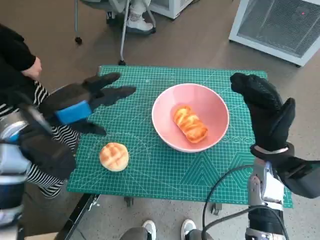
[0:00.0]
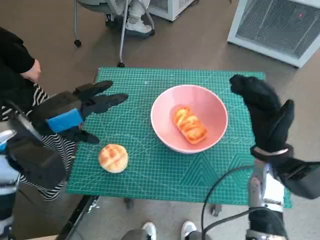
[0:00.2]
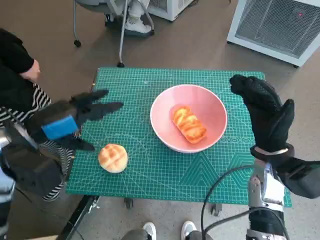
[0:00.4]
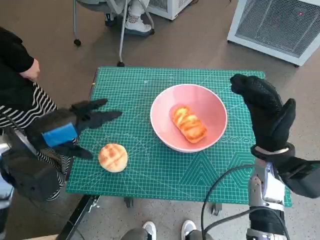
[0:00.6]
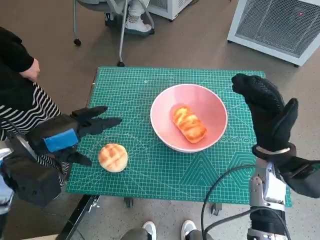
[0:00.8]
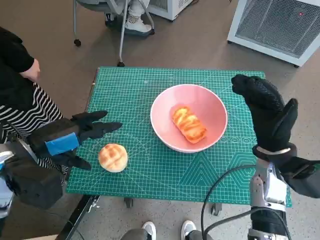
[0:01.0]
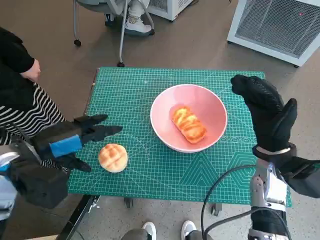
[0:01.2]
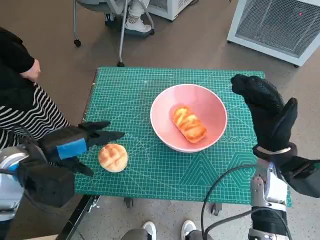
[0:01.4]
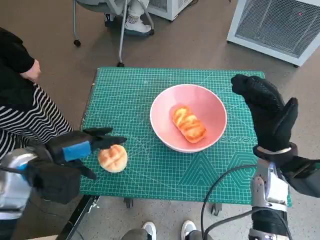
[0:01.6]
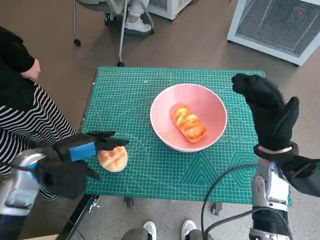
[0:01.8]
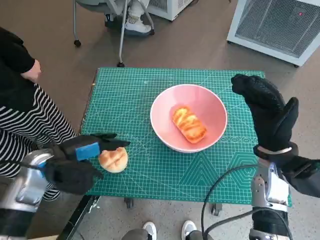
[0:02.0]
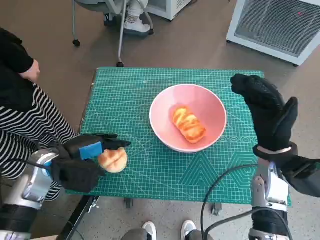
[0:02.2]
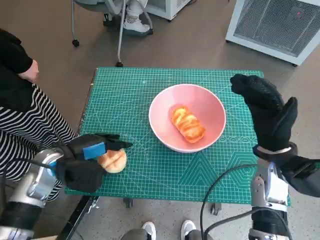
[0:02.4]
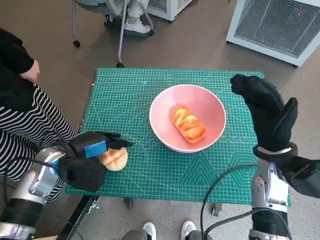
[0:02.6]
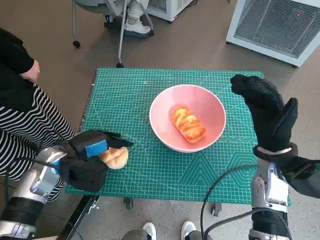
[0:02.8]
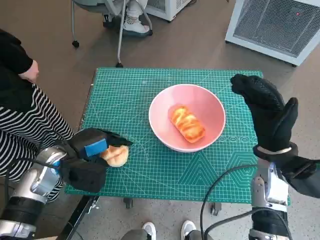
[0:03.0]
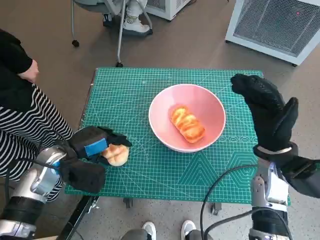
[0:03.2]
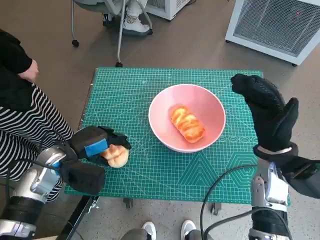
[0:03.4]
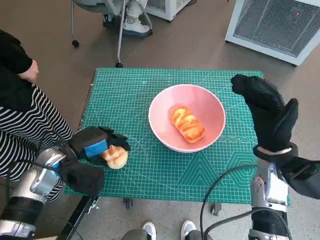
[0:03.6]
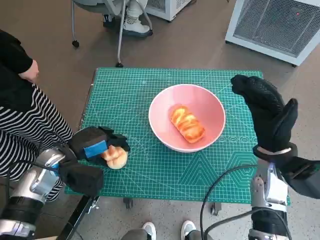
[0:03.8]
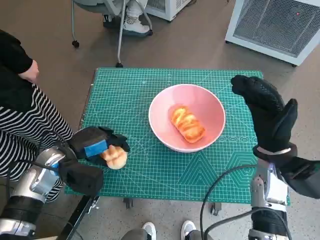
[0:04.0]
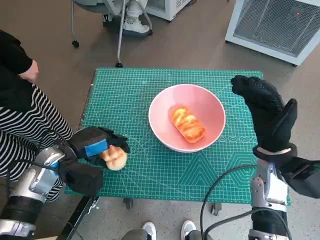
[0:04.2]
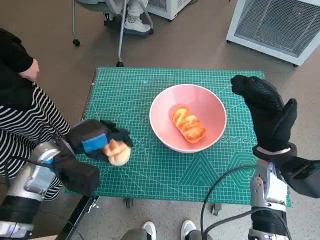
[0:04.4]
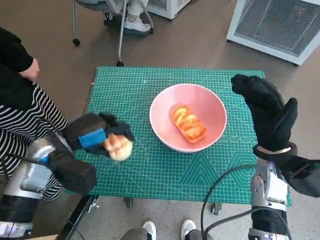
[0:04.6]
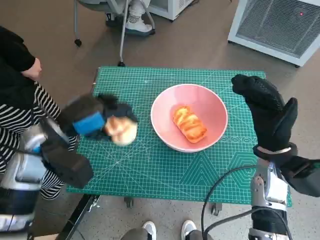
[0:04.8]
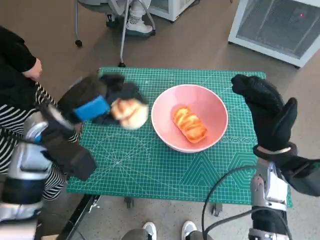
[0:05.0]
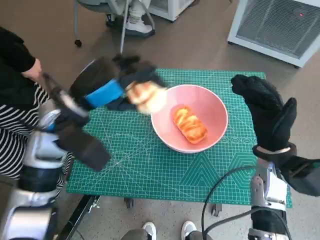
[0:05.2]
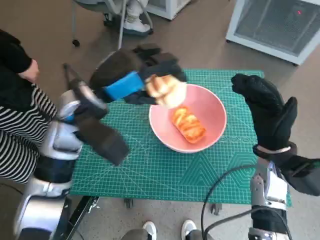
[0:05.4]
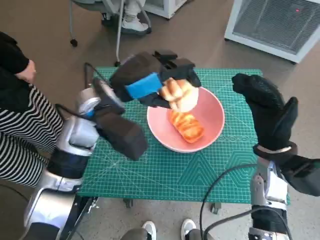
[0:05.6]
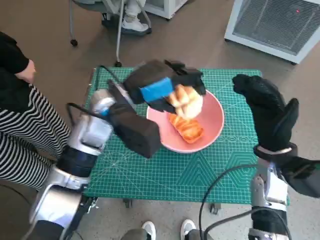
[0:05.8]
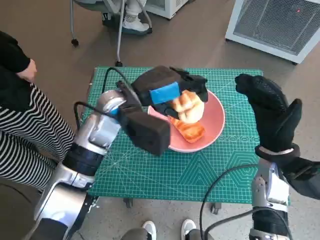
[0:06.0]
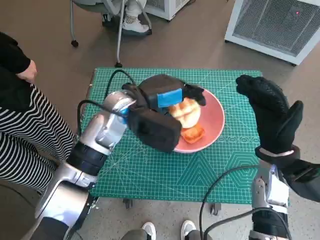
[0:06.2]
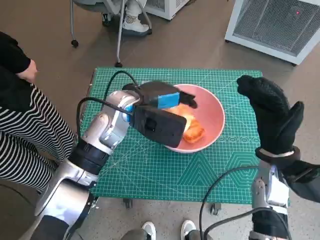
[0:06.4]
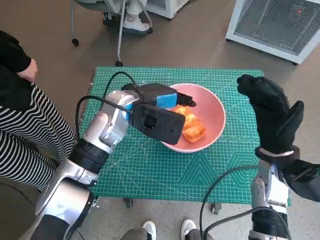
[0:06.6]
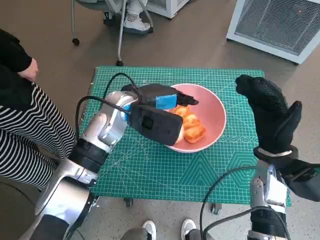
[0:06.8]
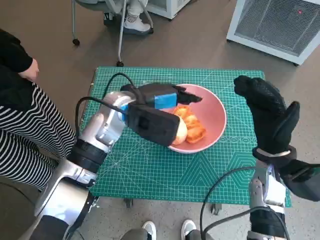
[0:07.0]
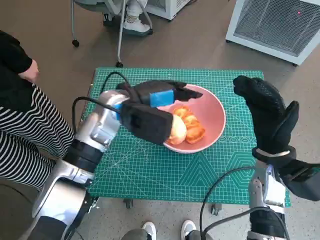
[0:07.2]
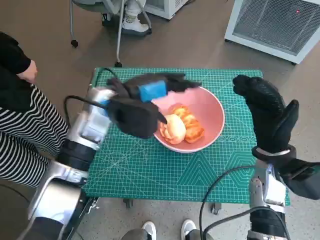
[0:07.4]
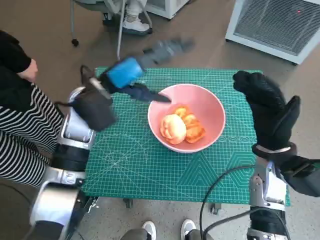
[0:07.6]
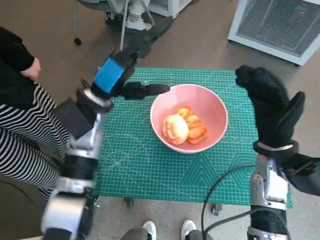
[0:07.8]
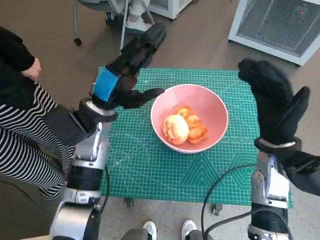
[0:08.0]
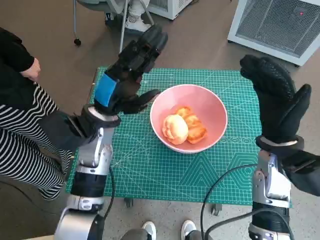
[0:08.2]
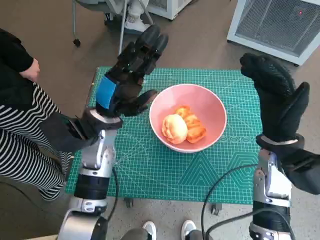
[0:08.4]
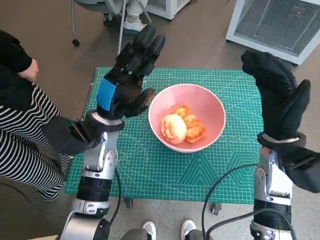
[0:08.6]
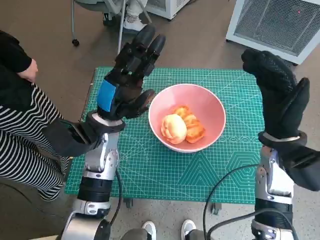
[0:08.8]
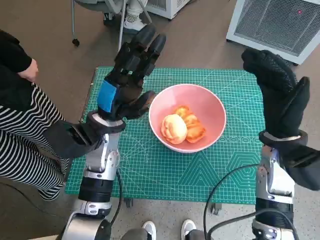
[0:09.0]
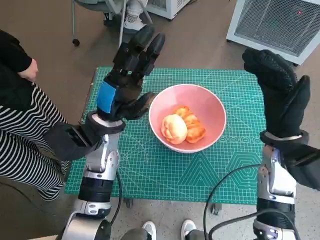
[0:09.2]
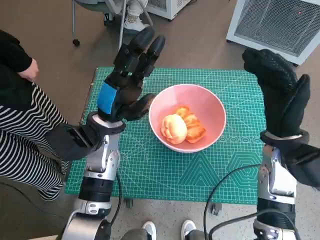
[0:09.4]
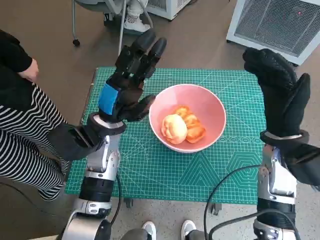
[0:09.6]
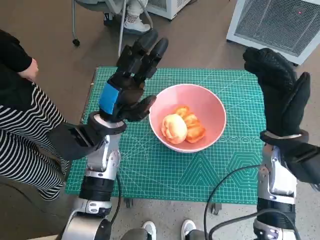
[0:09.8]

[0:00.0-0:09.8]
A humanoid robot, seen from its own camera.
Task of the whole recording: Push the bowl into the center of the table and put the bread into the bowl.
Step, 0:00.0 to 0:03.4: Grasp the round bread with left hand.
Step, 0:03.6 to 0:07.2: Place the round bread in pink bowl with left hand.
0:00.0 to 0:01.4: The left hand shifts by about 5 cm.
0:01.4 to 0:02.8: The left hand heads downward, covering approximately 10 cm.
0:02.8 to 0:04.2: The hands move only a little.
0:04.2 to 0:05.6: The left hand goes some 15 cm upward and to the right.
0:05.6 to 0:07.0: The left hand changes place by some 5 cm.
0:07.0 to 0:08.4: The left hand ends up about 5 cm from where it was.
0:08.4 to 0:09.8: The hands move only a little.

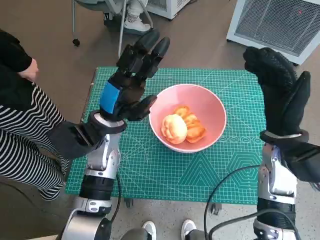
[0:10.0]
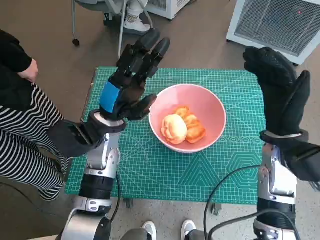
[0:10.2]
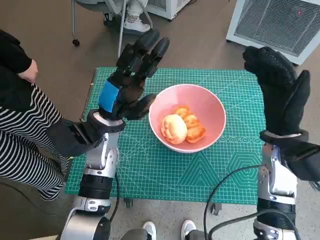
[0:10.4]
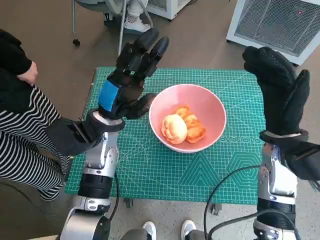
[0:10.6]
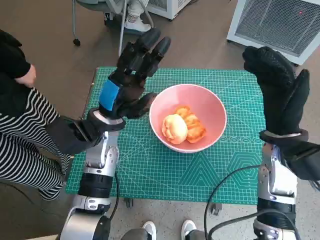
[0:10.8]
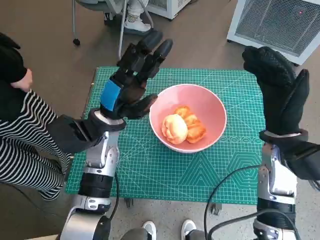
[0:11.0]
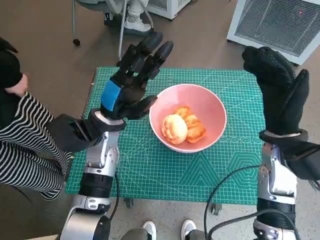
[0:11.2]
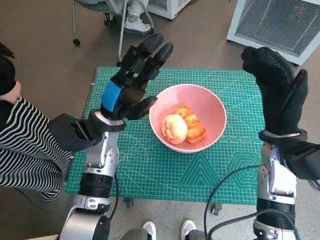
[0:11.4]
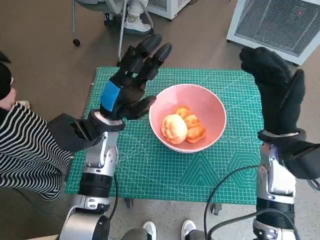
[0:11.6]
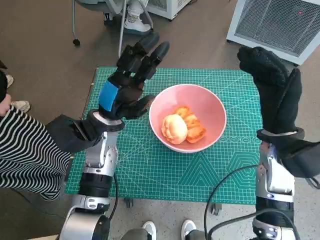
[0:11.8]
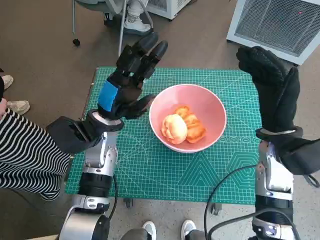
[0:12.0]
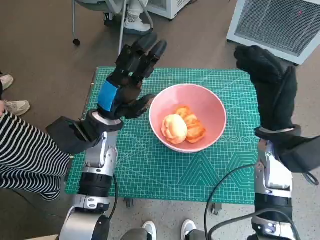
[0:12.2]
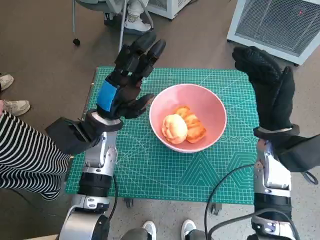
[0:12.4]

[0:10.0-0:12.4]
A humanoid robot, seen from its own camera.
Task of the whole recording: Push the bowl into the center of the table and put the bread into the bowl.
0:10.0 to 0:12.4: Both hands stay put.

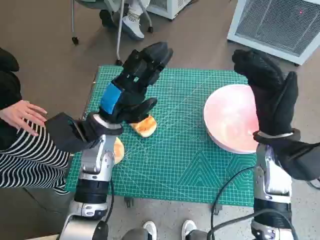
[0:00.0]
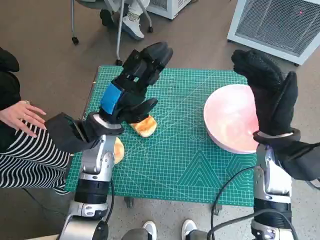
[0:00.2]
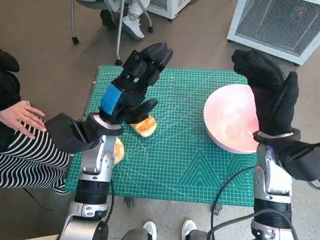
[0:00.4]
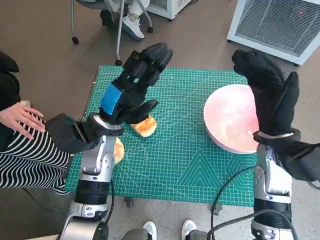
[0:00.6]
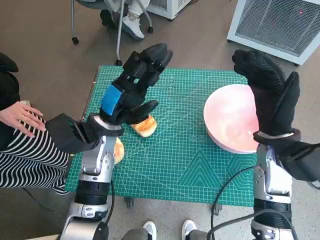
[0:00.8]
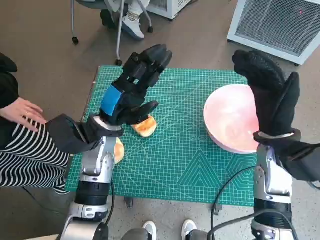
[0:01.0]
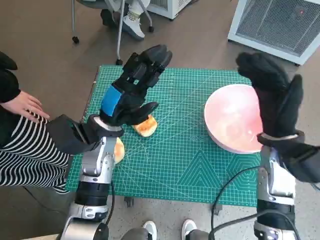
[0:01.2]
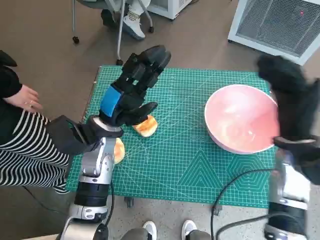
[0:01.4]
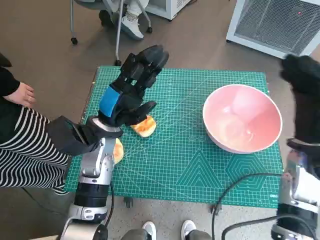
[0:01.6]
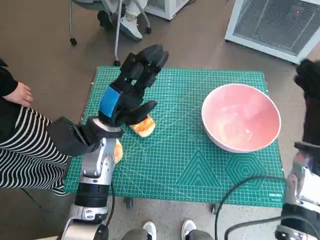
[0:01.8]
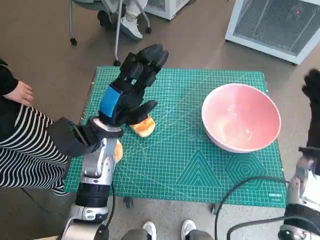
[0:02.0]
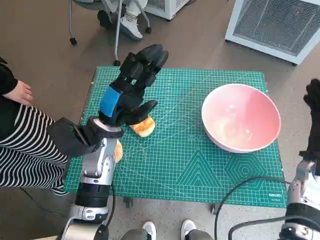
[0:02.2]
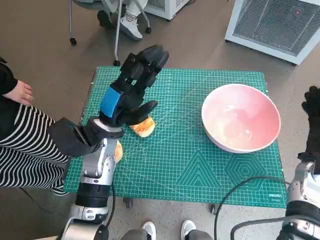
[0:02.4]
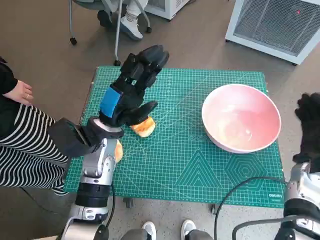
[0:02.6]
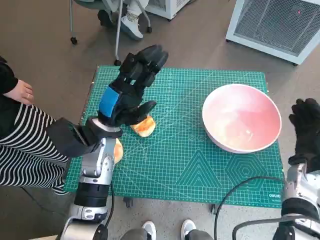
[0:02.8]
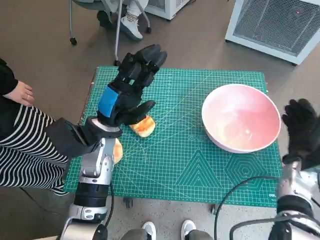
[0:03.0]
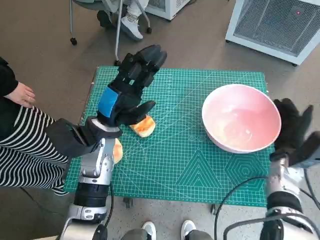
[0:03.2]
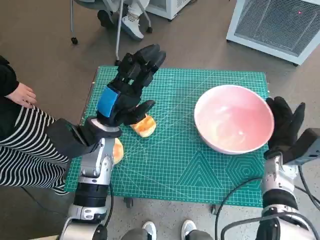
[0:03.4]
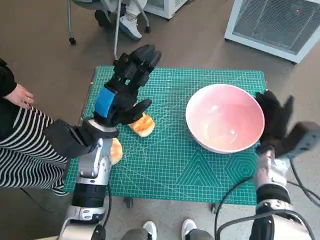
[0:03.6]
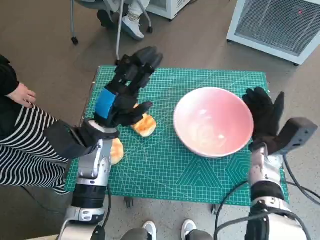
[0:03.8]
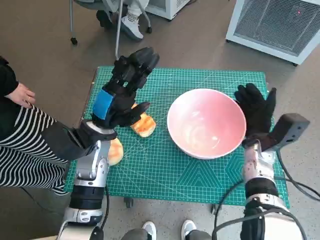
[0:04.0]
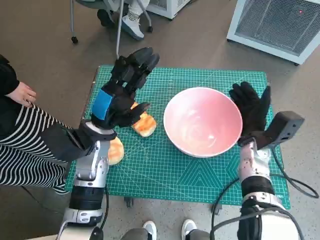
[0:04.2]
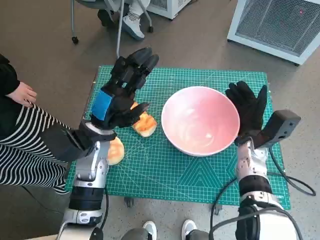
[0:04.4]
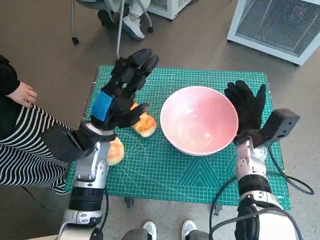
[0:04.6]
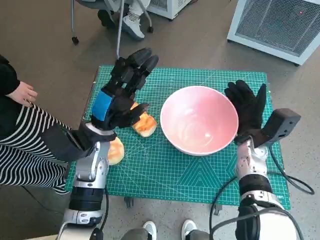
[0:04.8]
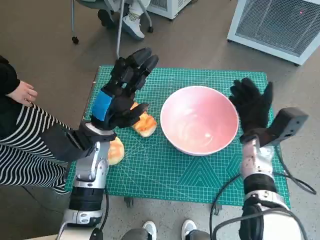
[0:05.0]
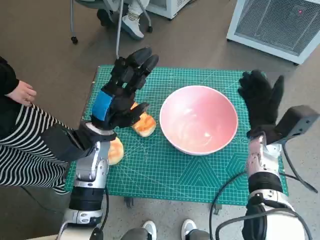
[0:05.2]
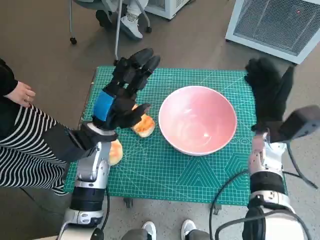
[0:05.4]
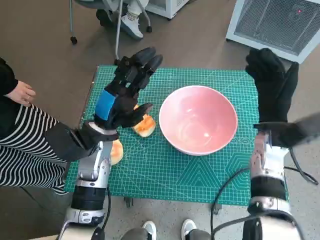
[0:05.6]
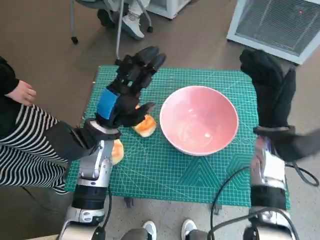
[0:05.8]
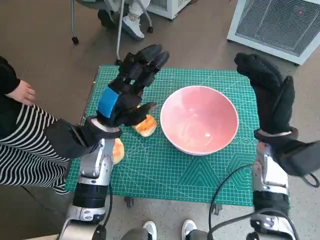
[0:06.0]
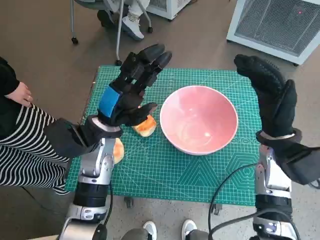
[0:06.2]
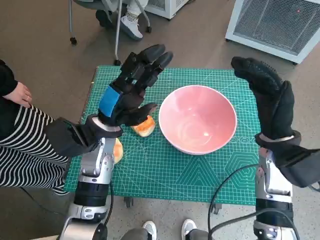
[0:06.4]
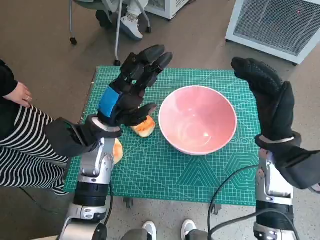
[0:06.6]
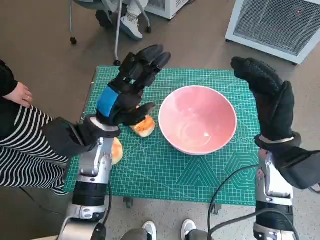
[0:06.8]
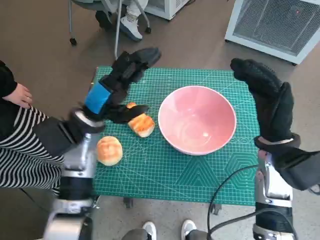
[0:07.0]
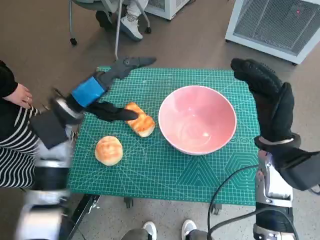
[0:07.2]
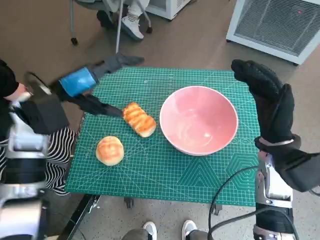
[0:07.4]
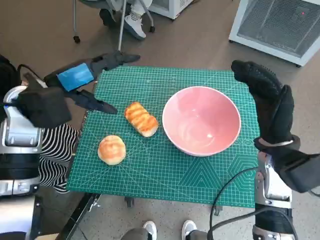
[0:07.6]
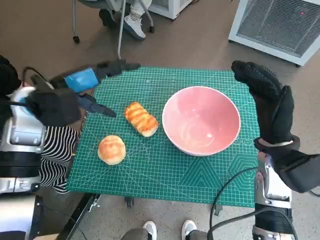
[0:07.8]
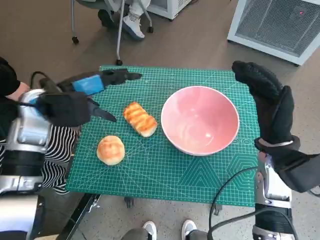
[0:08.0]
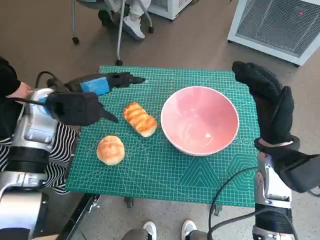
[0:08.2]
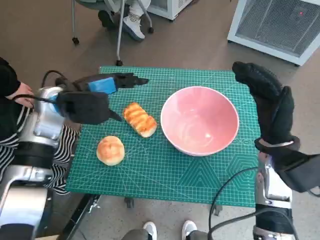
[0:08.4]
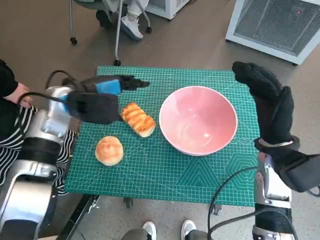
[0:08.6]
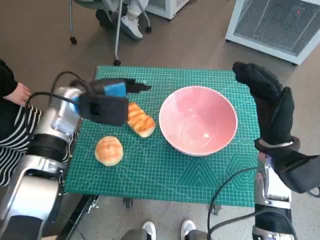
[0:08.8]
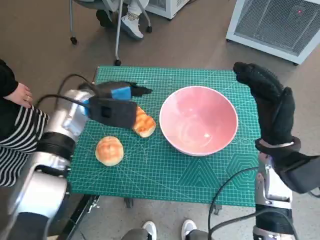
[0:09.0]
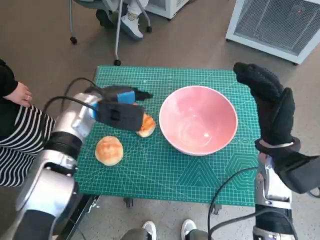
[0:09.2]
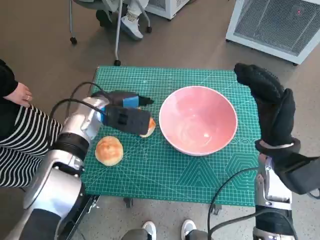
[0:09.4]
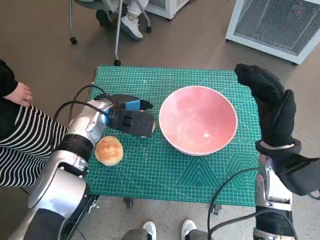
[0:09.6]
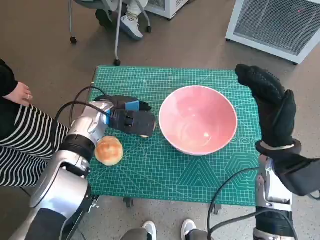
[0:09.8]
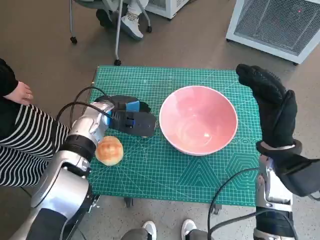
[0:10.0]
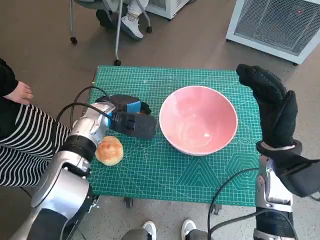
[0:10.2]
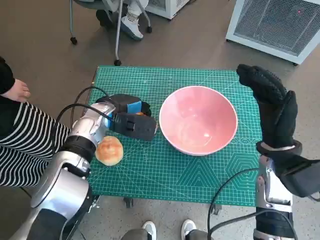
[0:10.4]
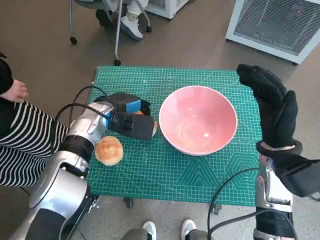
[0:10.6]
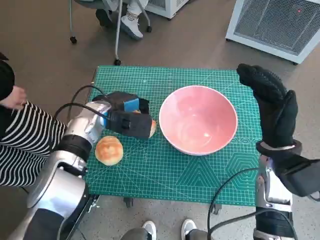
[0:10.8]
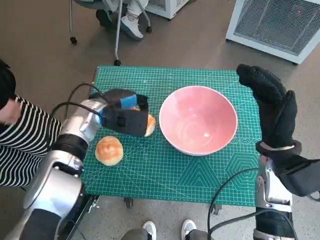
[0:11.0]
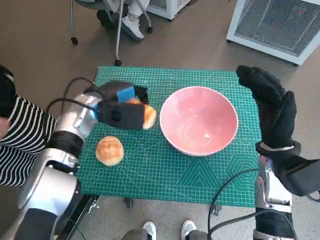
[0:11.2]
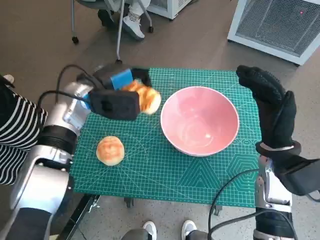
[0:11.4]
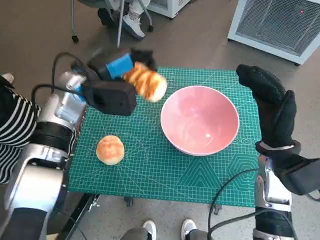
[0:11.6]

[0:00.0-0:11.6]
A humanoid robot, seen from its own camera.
Task of the whole recording: Push the bowl into the center of the table and put the bread into the bowl.
Step, 0:00.0 to 0:05.2: Move the pink bowl to the center of table with right hand.
Step, 0:05.4 to 0:10.4: Grasp the long bread with left hand.
0:01.4 to 0:02.8: The right hand moves downward and to the right, roughly 10 cm.
0:02.8 to 0:04.4: The right hand moves to the left, approximately 10 cm.
0:04.4 to 0:05.8: The right hand goes some 5 cm upward.
0:05.8 to 0:07.2: The left hand heads to the left, covering roughly 5 cm.
0:08.8 to 0:10.2: The left hand moves downward, approximately 5 cm.
0:10.2 to 0:11.6: The left hand heads upward, covering approximately 10 cm.
